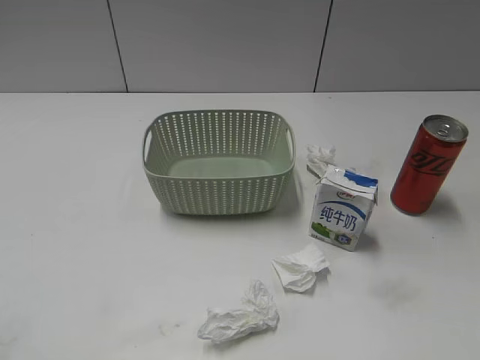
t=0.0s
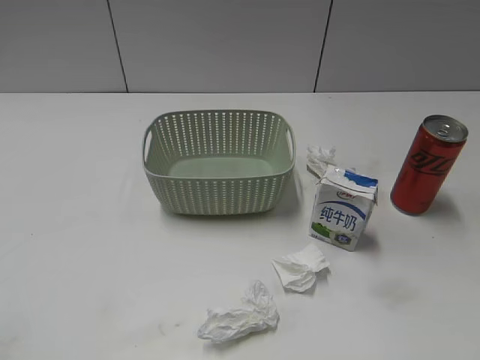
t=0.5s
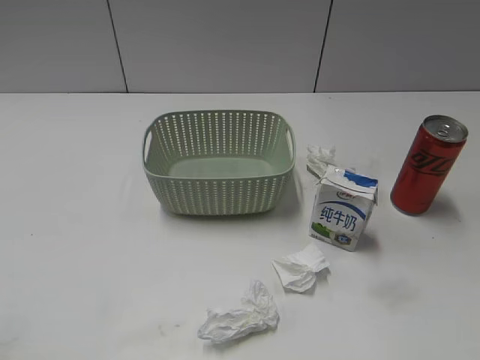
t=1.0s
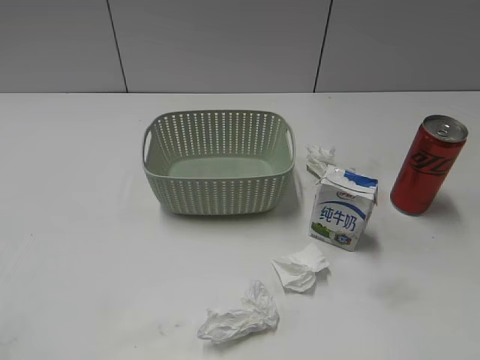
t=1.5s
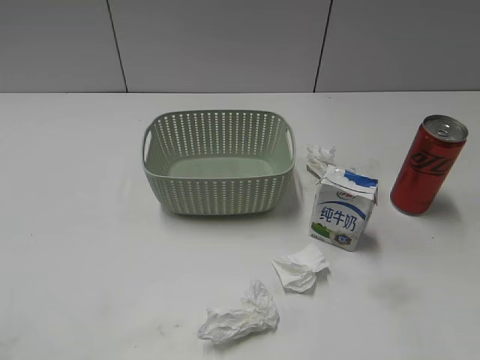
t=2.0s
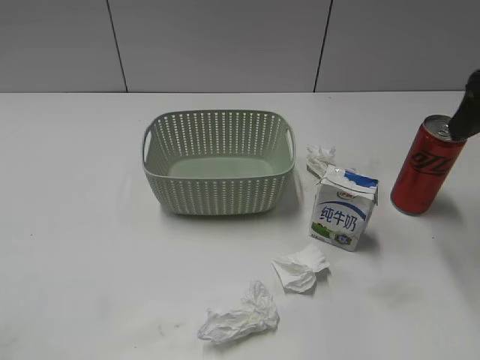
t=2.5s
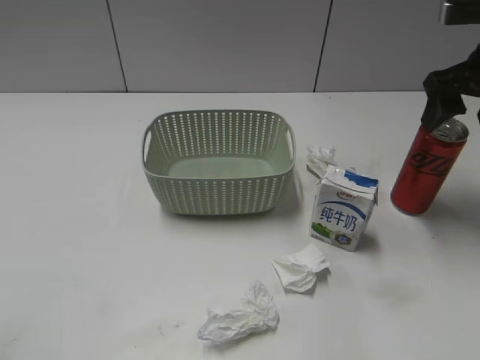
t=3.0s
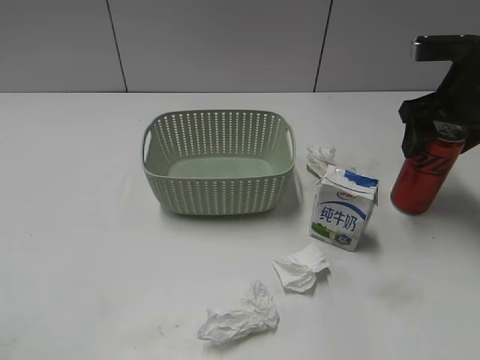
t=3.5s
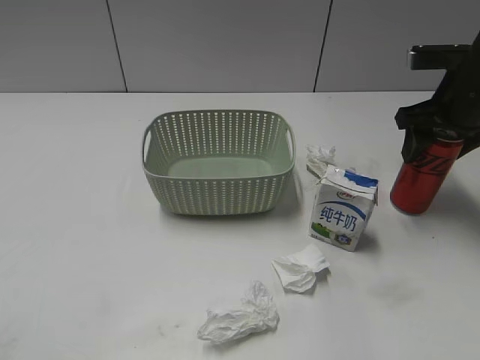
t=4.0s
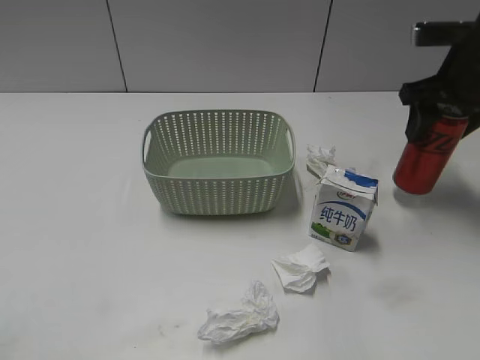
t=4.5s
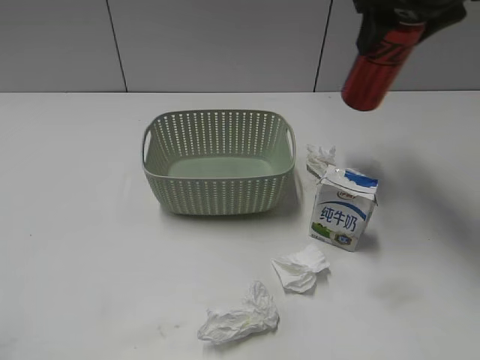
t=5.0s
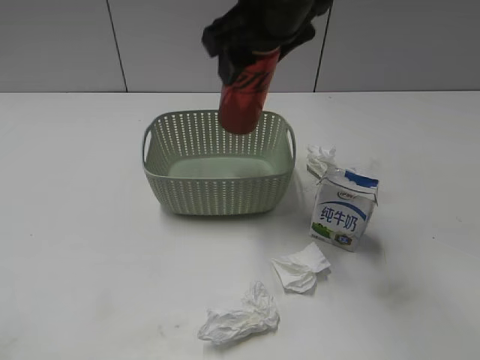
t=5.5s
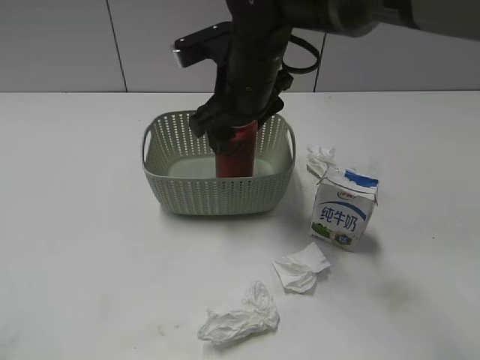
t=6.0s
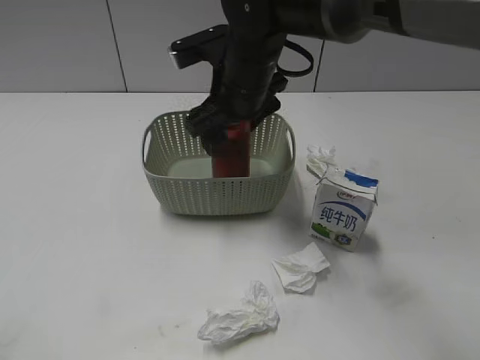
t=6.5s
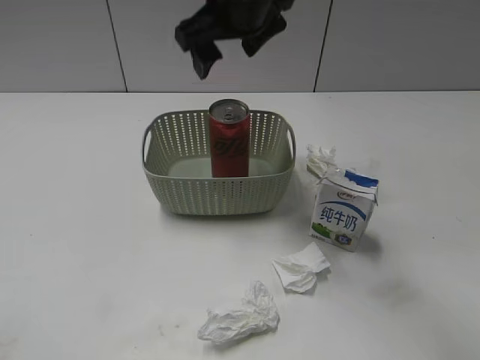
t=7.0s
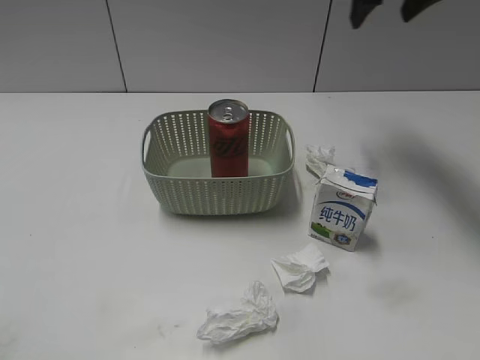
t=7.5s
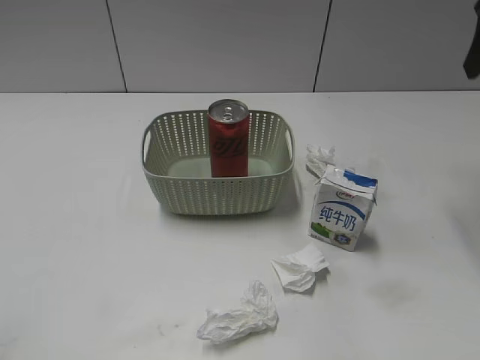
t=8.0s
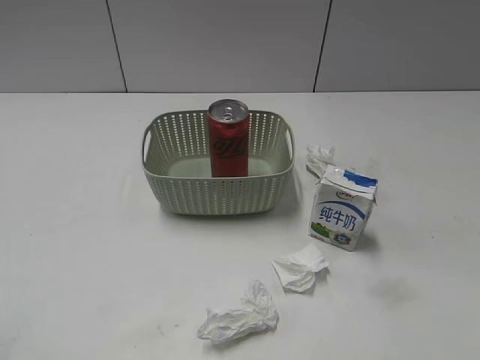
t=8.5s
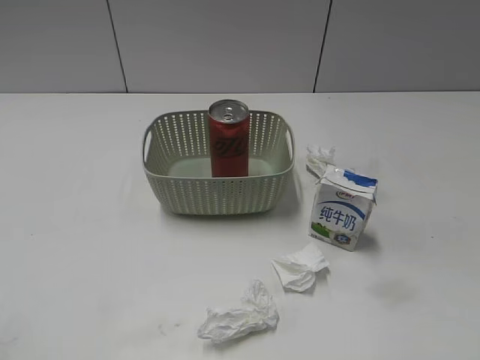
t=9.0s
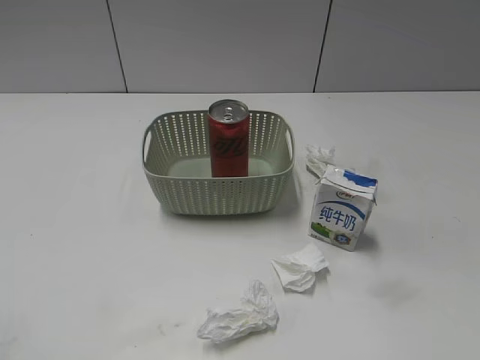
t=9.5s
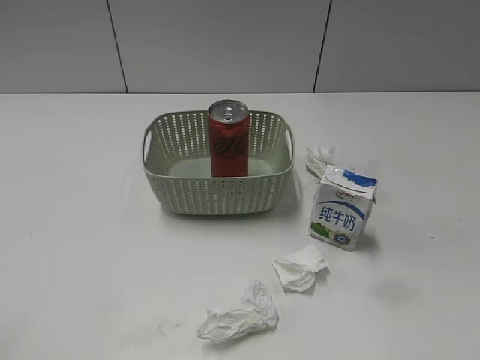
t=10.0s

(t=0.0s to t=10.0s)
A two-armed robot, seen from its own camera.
Step, t=2.5s - t=4.0s: Grasp the cola can with right gripper.
Step, t=4.5s - t=6.5s: Place the cola can in the basket with right gripper.
t=2.0s - t=4.0s: The right gripper is displaced forward and downward by roughly 30 cm, and closes.
t=4.0s - t=6.0s: The right gripper is displaced to the left by roughly 25 cm.
t=6.0s - t=8.0s: The right gripper is displaced to the right and upward by approximately 30 cm, and opens up.
t=8.0s - t=10.0s: The right gripper shifts some 35 cm backward.

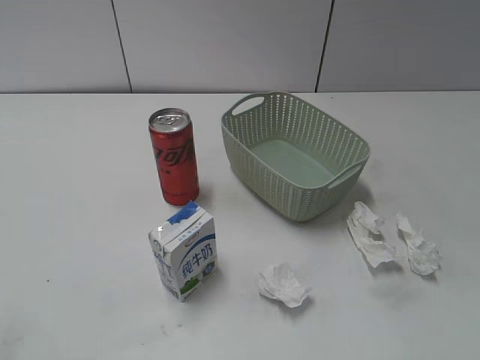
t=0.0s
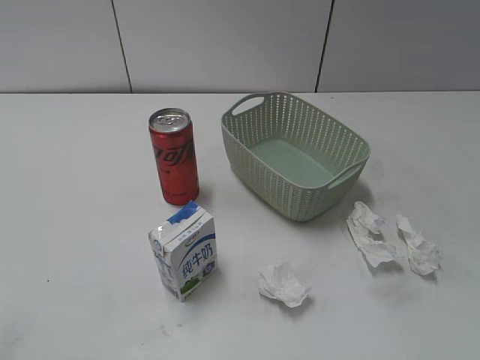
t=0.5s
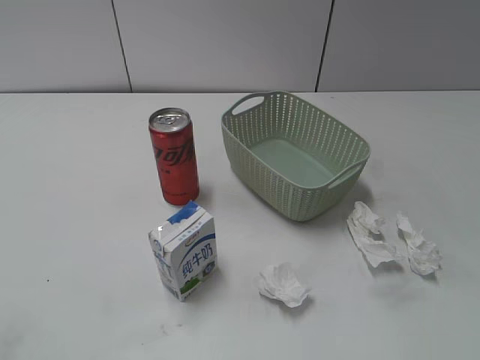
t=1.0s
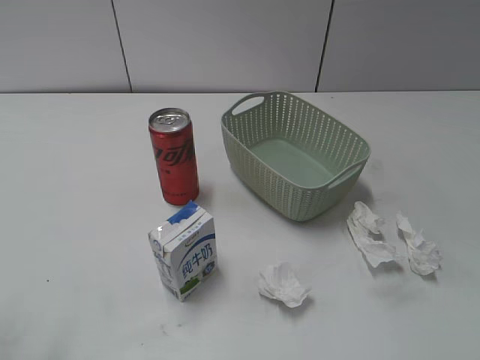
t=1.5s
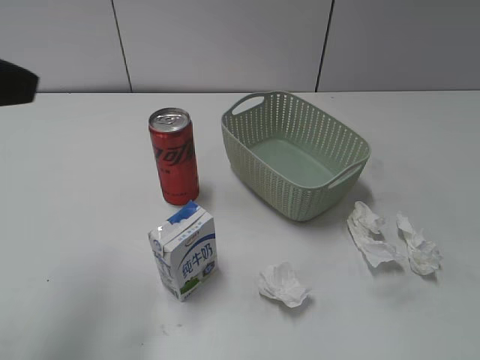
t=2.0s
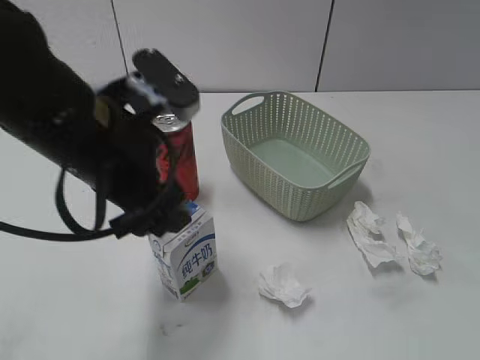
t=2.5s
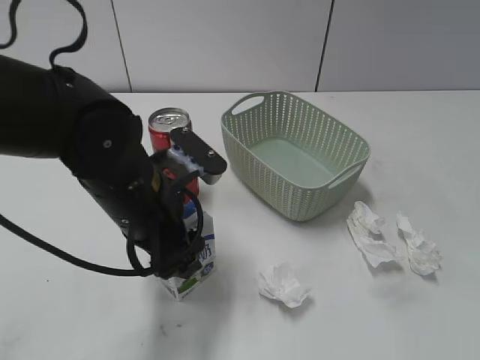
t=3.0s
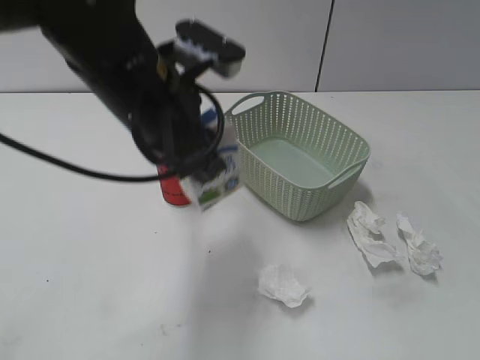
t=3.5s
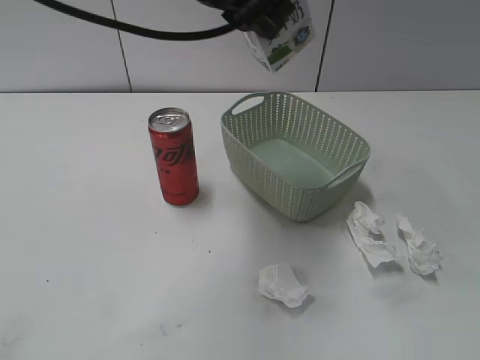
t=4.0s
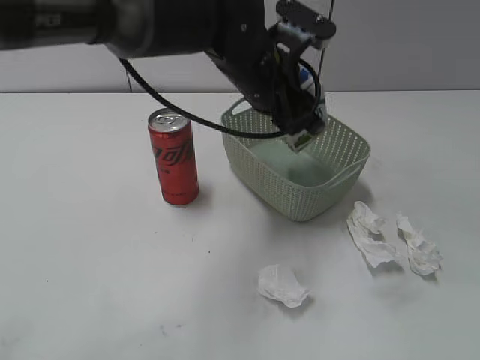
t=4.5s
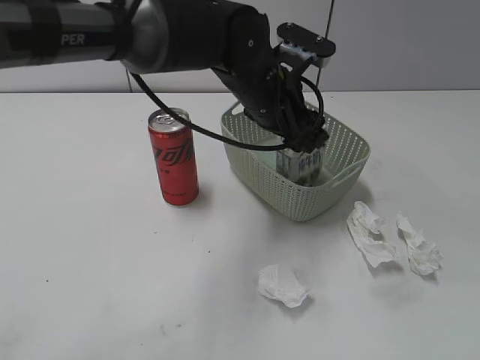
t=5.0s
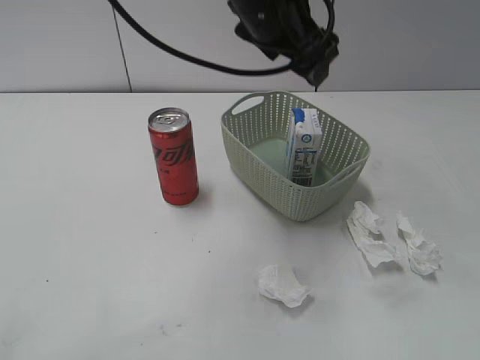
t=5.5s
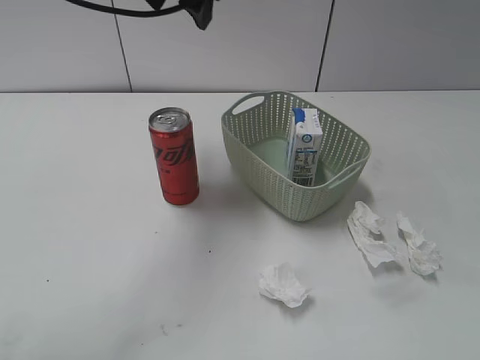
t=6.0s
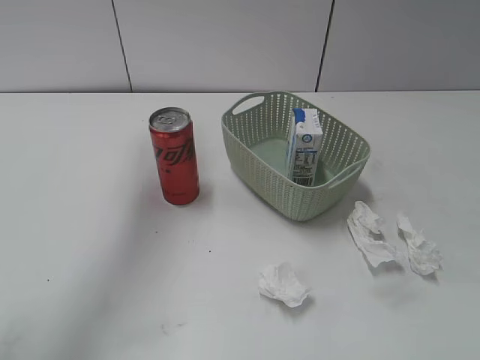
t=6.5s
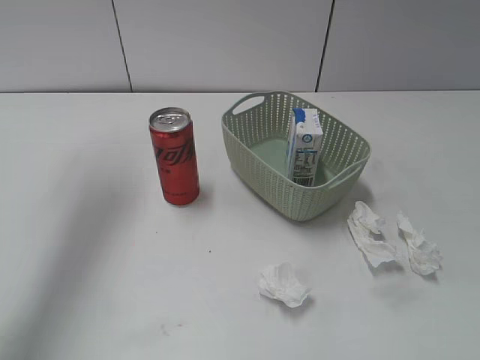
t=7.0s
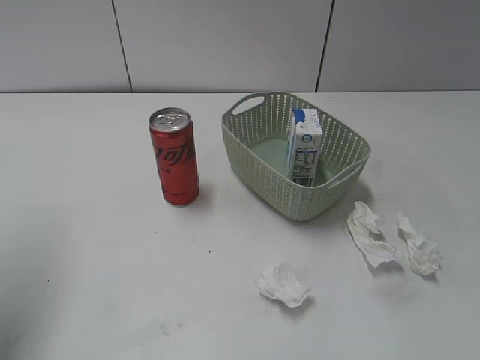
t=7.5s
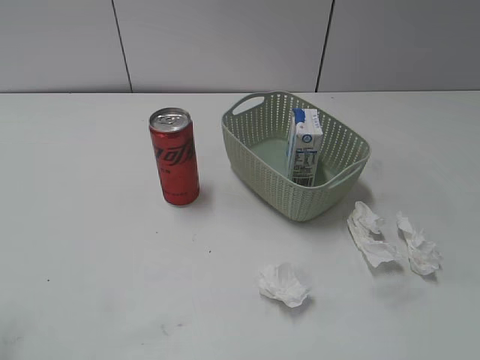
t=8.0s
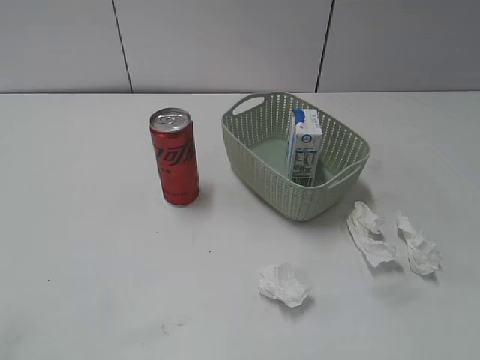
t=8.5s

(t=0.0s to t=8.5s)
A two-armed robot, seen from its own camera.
Step, t=2.0s - t=3.0s: Grasp the milk with left gripper.
Step, t=3.5s - t=5.5s: Place the milk in the basket with left gripper.
t=2.0s - t=4.0s: The left gripper shifts approximately 25 cm to the right and forward, and closes.
t=4.0s - t=6.5s: The left gripper shifts roughly 20 cm to the left and forward, and opens up.
t=6.5s - t=8.5s: The left gripper goes some 40 cm backward.
